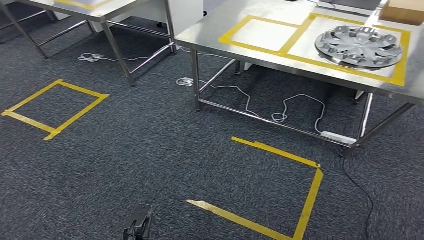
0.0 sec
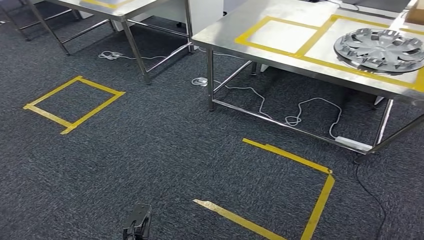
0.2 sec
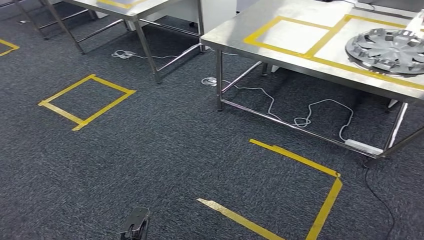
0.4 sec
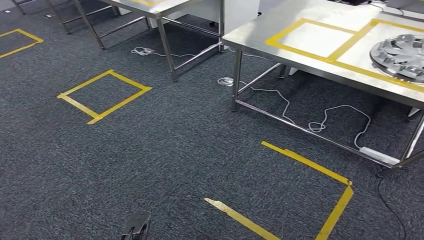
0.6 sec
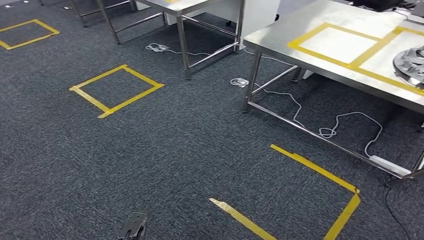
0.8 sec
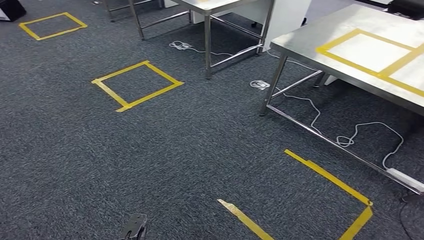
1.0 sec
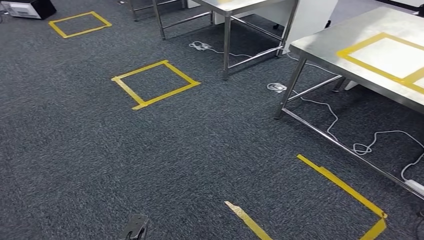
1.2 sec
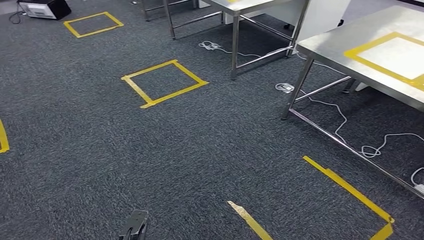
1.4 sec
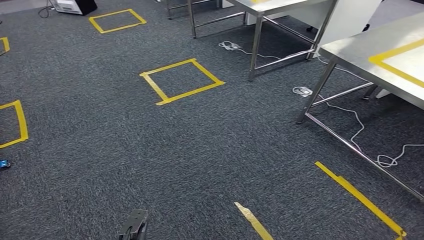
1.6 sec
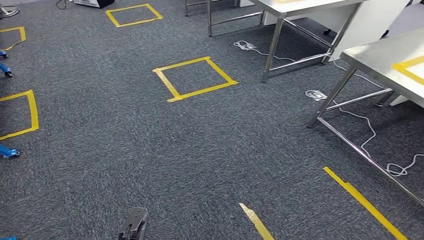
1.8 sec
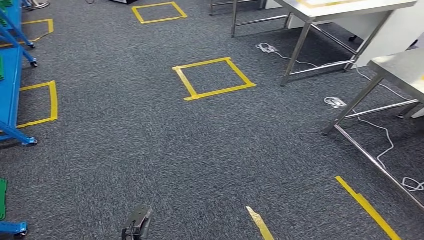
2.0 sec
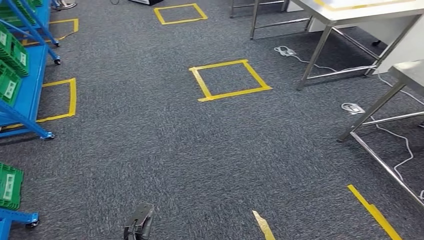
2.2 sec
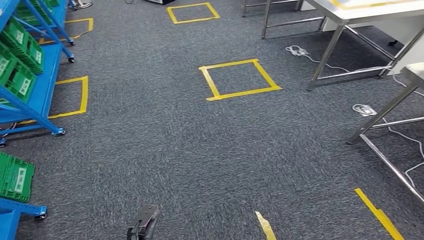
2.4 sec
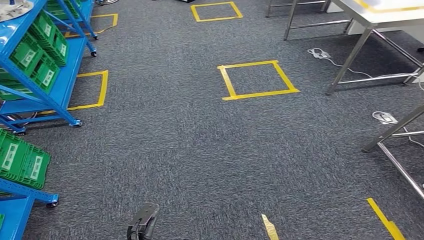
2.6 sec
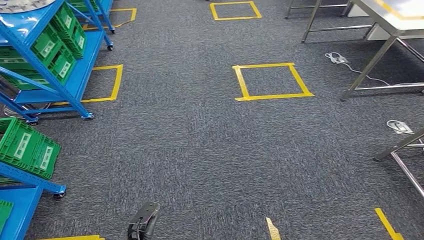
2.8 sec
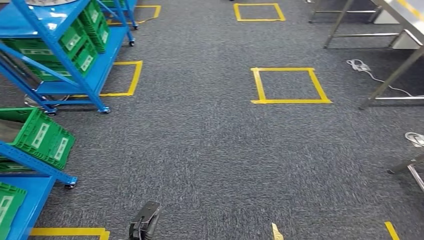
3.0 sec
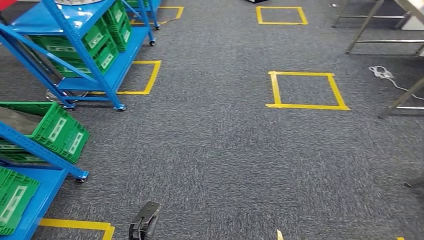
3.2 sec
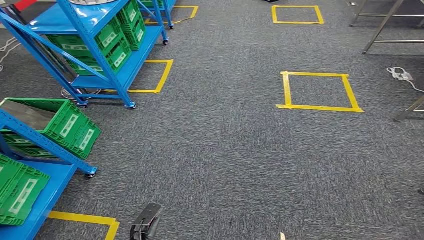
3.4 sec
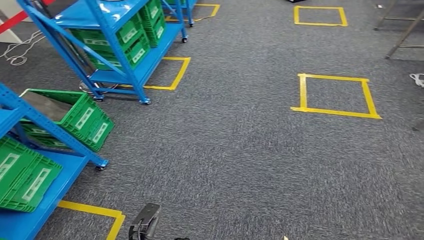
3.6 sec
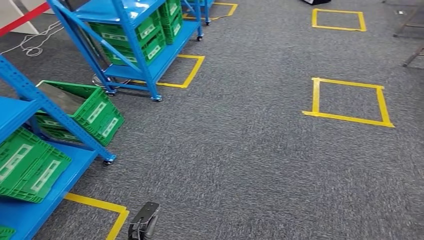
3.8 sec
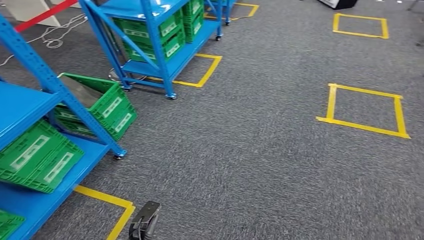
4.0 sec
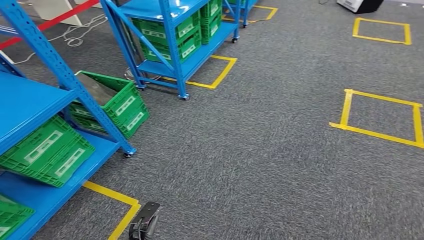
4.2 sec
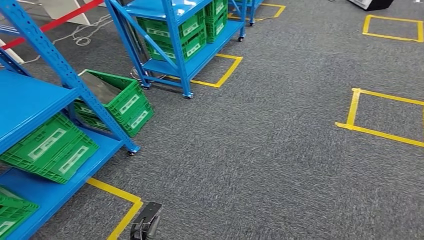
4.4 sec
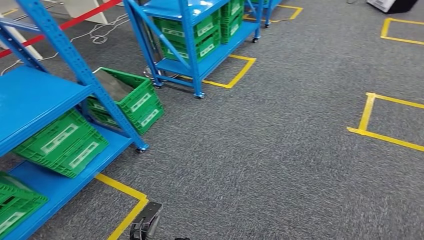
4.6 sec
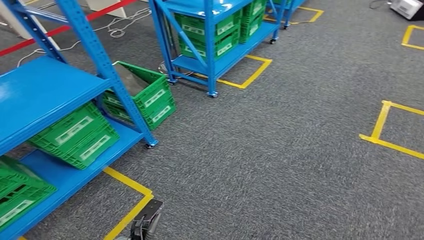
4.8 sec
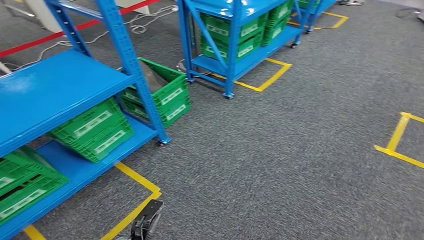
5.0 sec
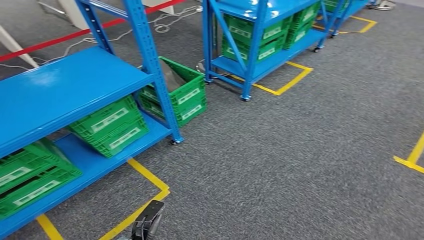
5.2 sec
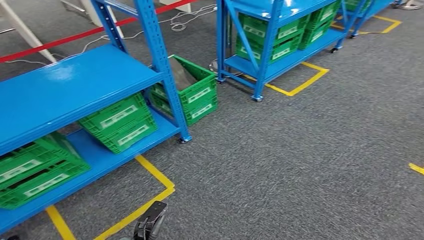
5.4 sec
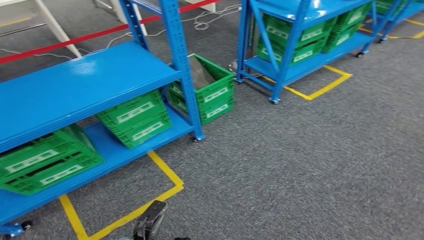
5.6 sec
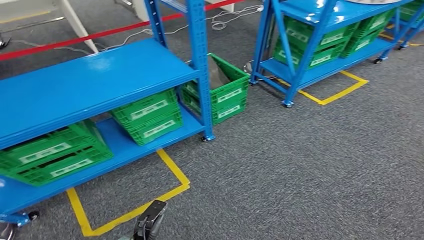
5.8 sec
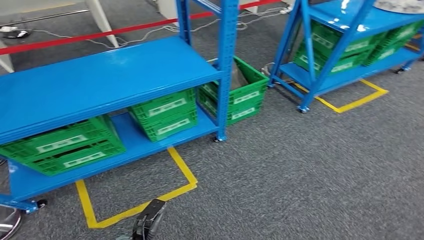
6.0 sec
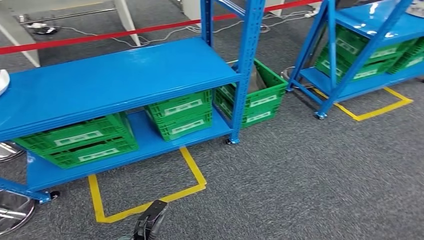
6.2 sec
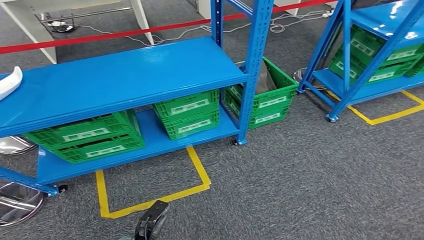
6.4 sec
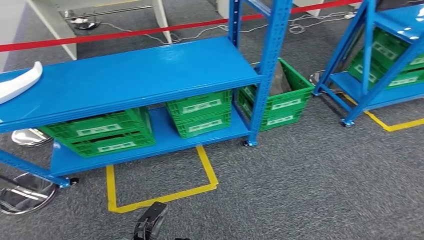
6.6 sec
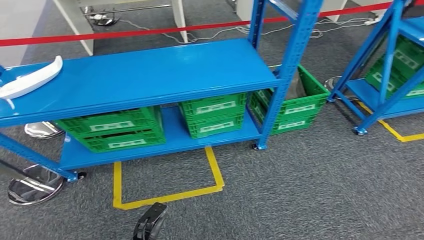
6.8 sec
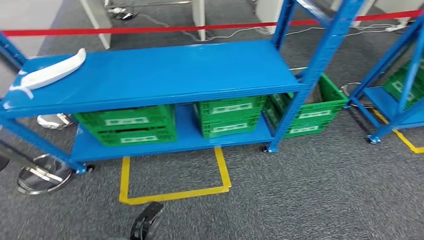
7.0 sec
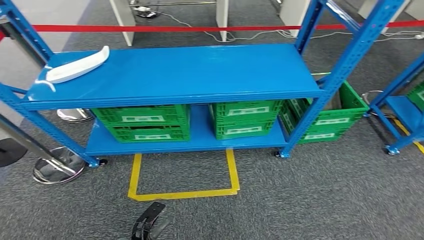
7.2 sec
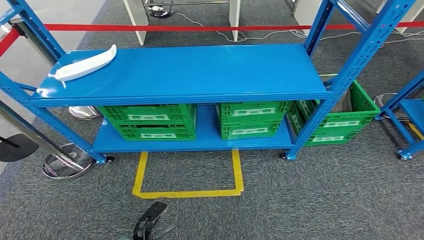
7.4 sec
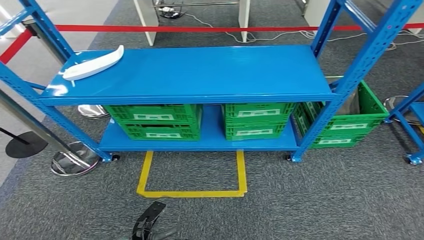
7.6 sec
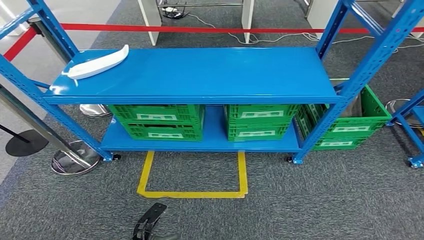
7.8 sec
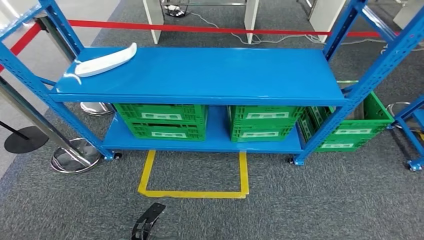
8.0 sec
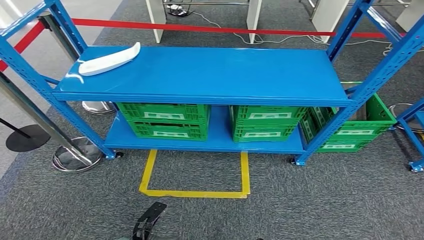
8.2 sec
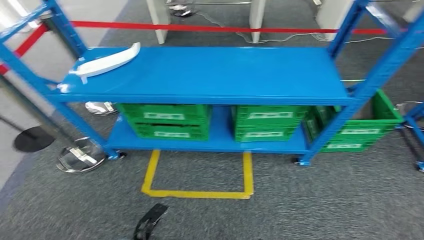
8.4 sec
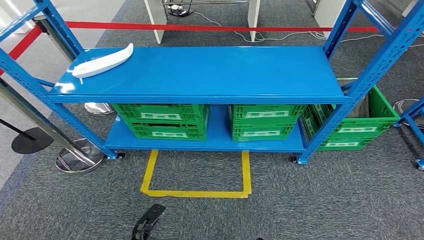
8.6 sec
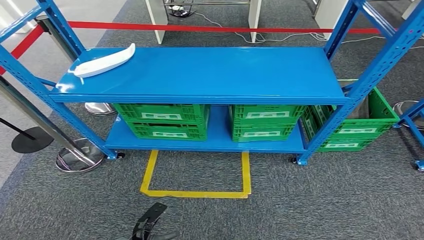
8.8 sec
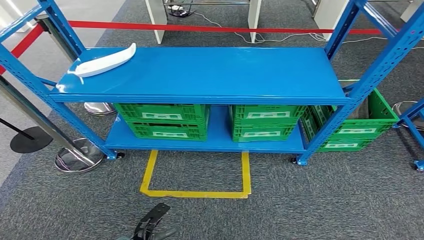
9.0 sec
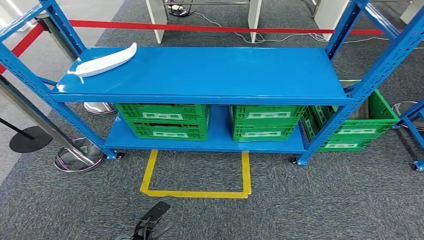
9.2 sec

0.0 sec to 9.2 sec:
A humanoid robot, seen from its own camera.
Step, 0.0 sec to 9.2 sec: Move to the initial position of the workbench.
